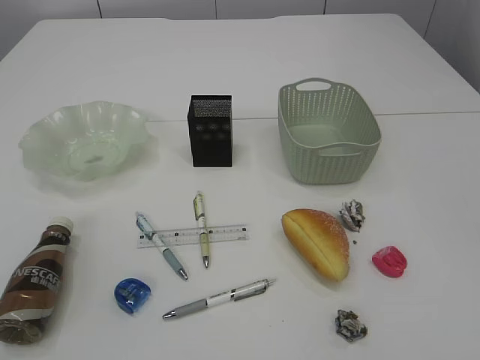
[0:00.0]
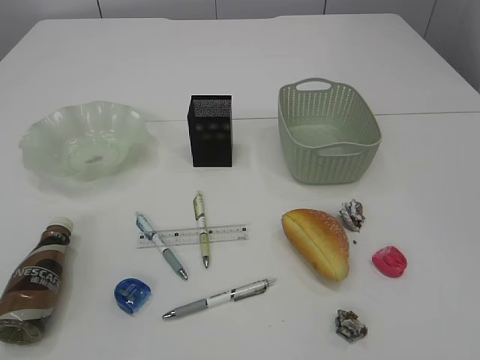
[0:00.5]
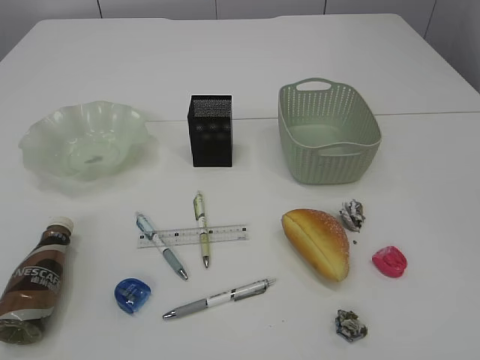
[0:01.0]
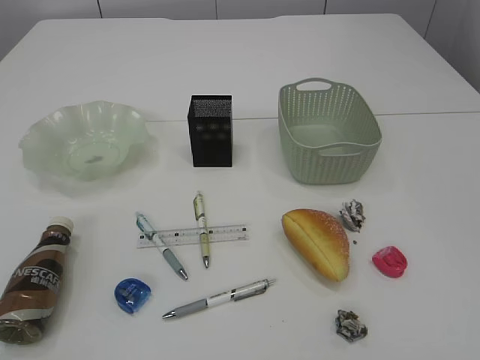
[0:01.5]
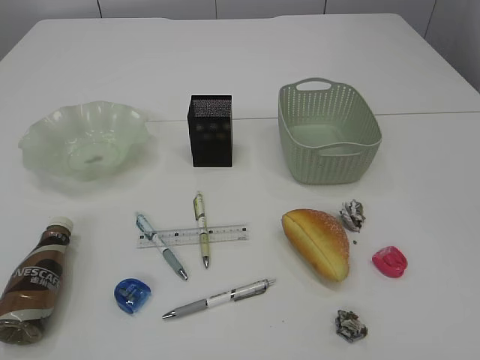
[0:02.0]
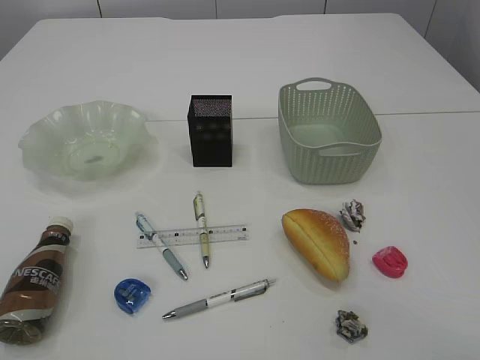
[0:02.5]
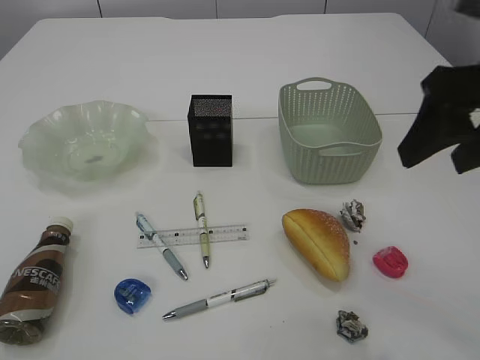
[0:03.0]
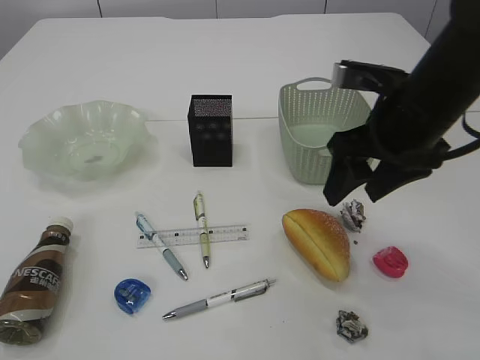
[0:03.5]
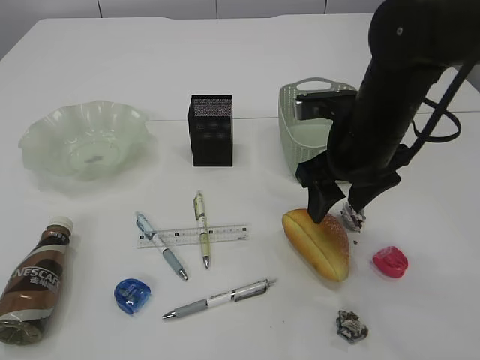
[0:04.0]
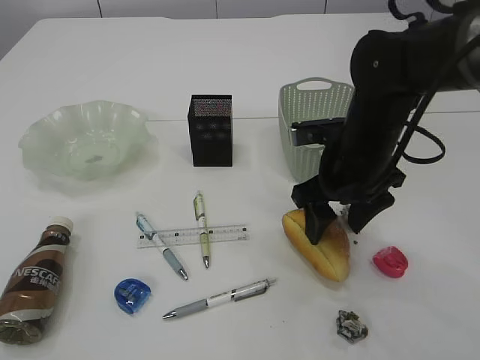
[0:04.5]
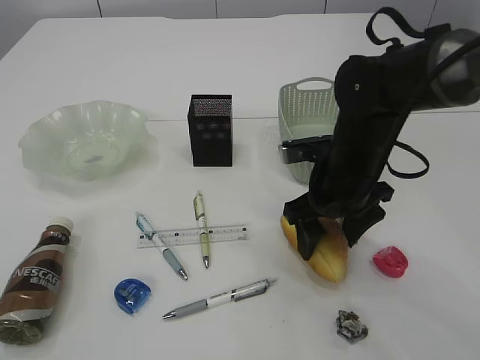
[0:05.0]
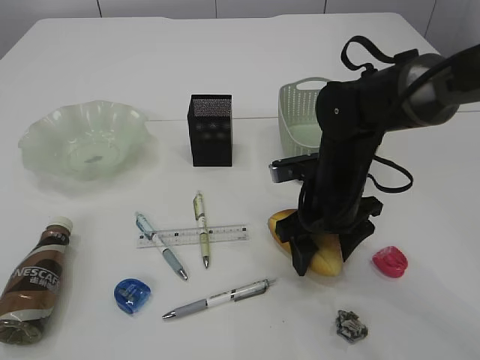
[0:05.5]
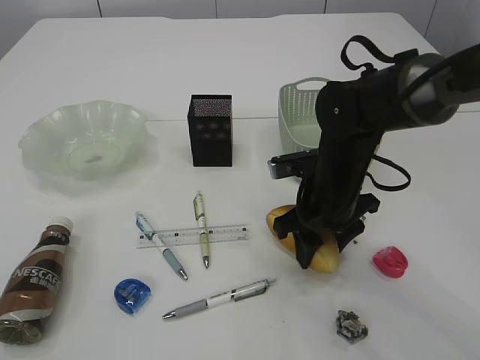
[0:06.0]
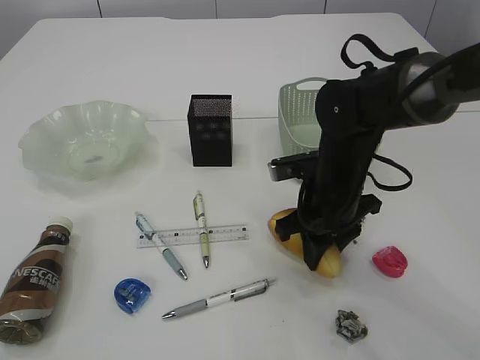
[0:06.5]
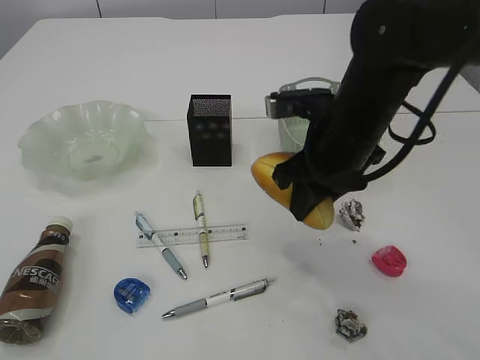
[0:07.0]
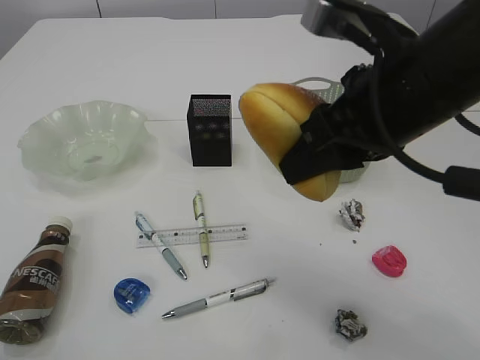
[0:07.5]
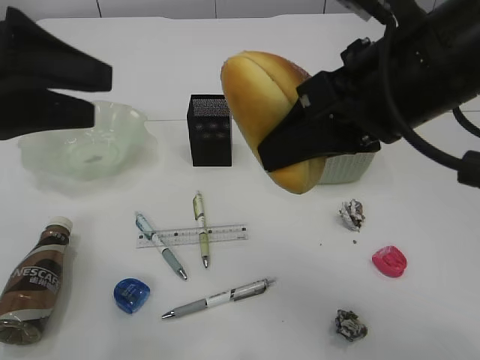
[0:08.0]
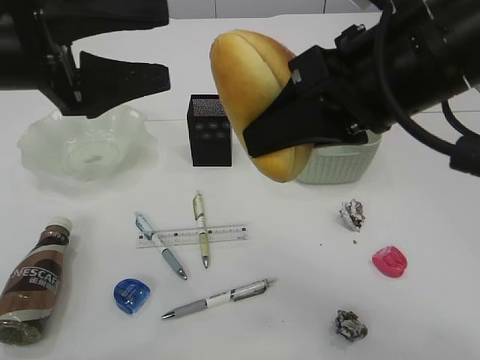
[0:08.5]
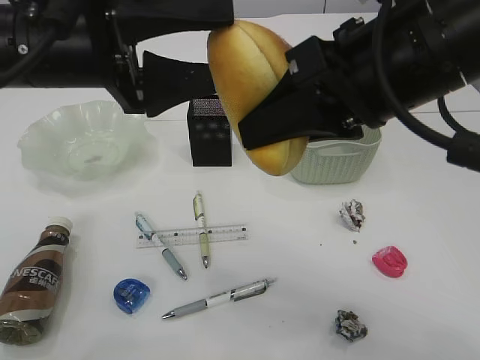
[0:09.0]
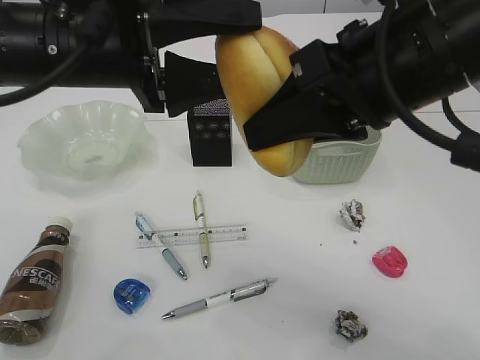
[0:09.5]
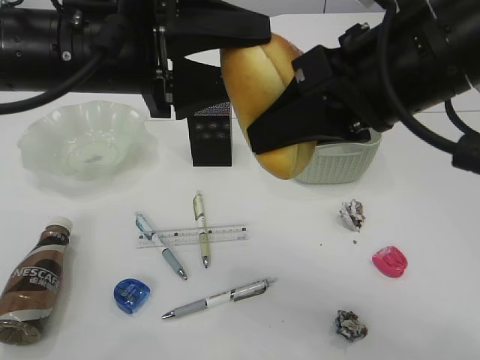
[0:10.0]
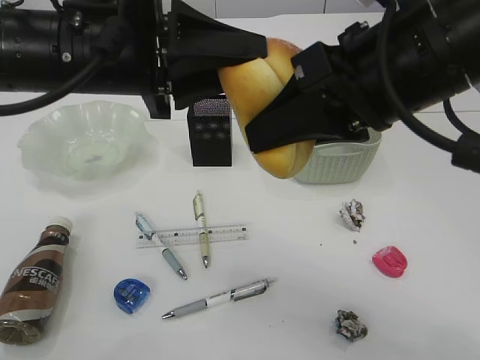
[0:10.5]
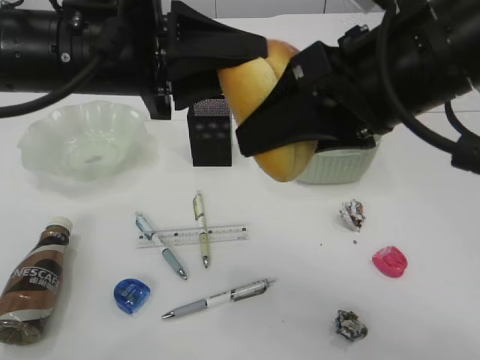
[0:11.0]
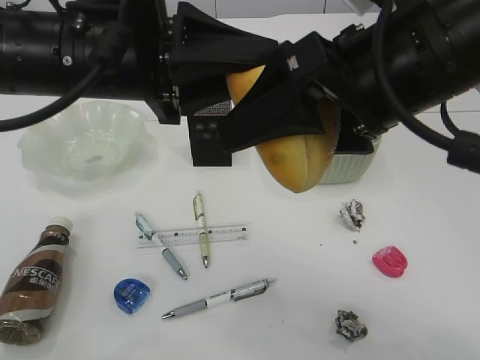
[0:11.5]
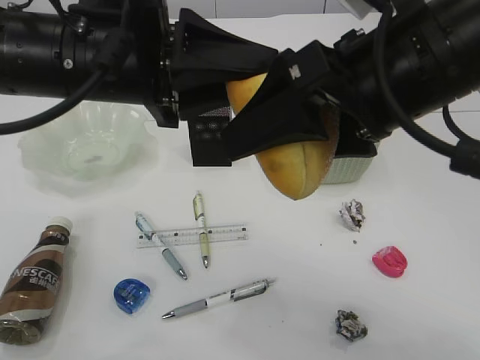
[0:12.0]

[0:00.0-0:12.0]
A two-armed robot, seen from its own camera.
0:02.0 to 0:04.0: The right gripper heads forward and to the left, covering approximately 40 cm. The left gripper is displaced forward by approximately 10 cm.
0:04.0 to 0:06.0: The right gripper goes roughly 10 cm downward.
0:06.0 to 0:08.0: The left gripper moves forward and to the right, roughly 15 cm. The right gripper moves upward and backward, about 25 cm, and closes.
0:08.0 to 0:10.0: The left gripper moves to the right, approximately 10 cm.
0:10.0 to 0:12.0: The right gripper opens up. Meanwhile the left gripper closes.

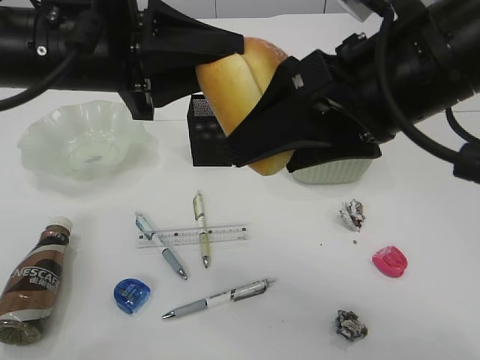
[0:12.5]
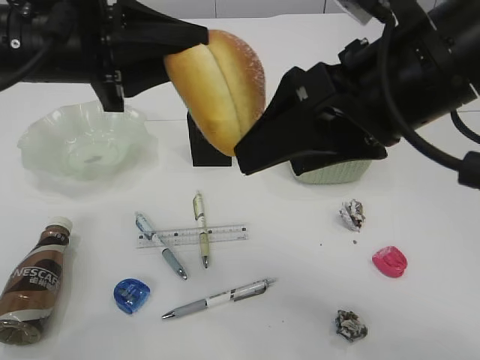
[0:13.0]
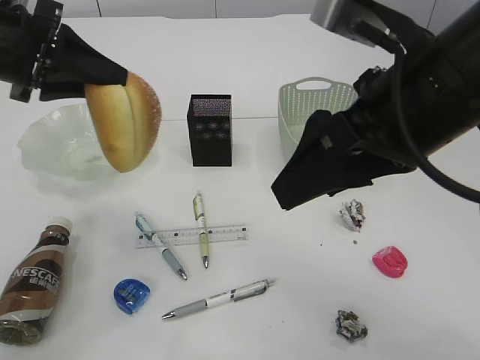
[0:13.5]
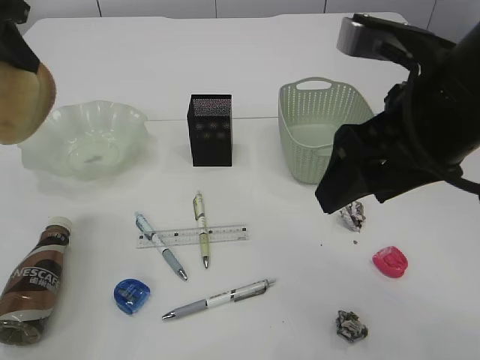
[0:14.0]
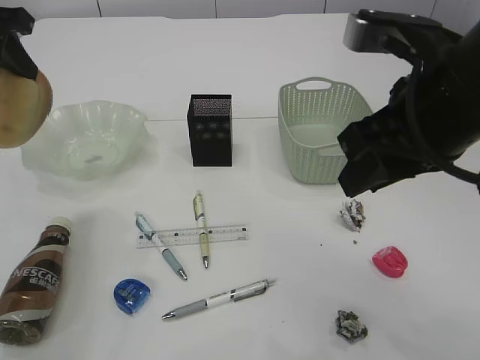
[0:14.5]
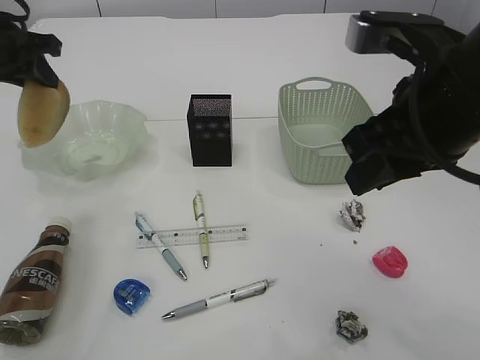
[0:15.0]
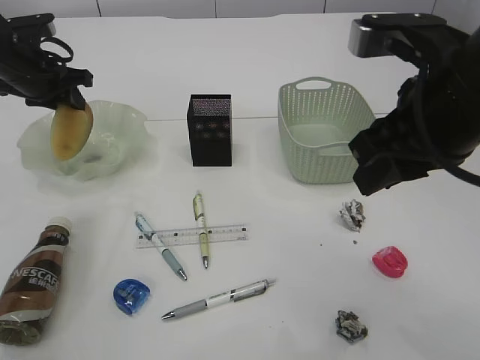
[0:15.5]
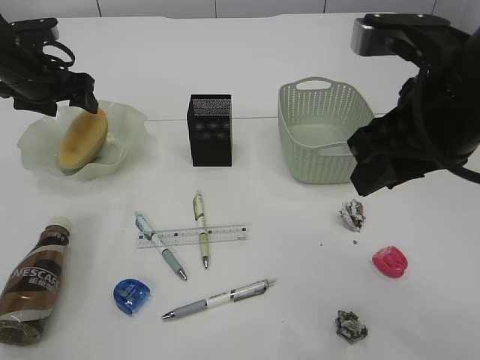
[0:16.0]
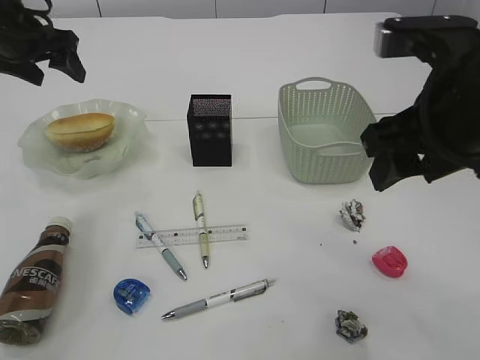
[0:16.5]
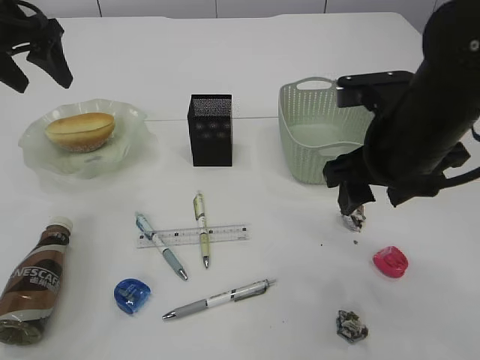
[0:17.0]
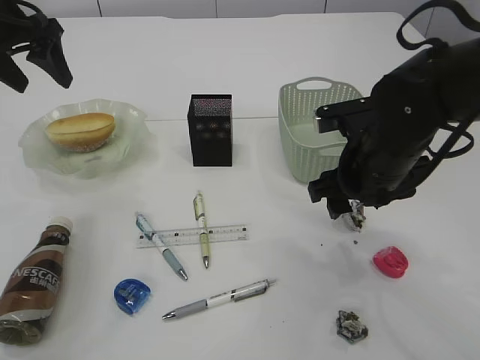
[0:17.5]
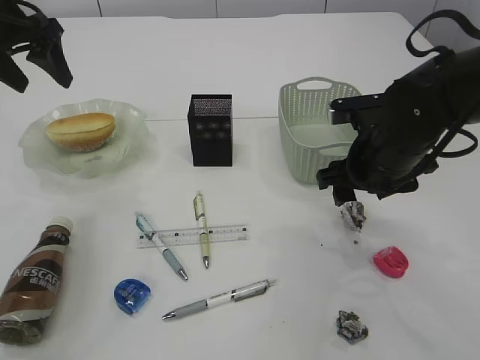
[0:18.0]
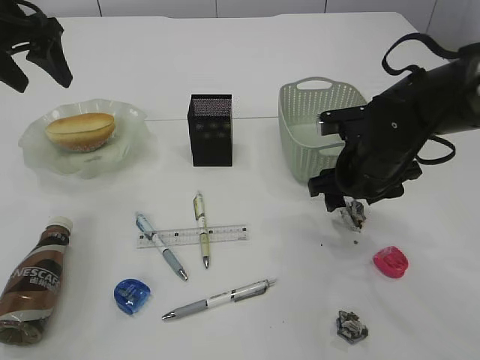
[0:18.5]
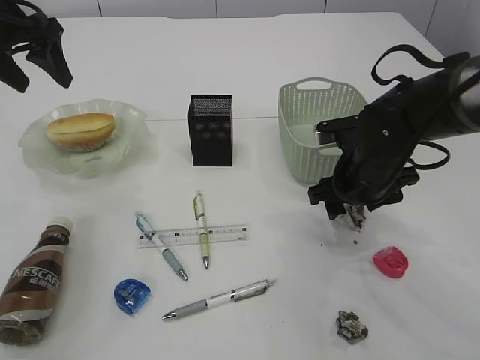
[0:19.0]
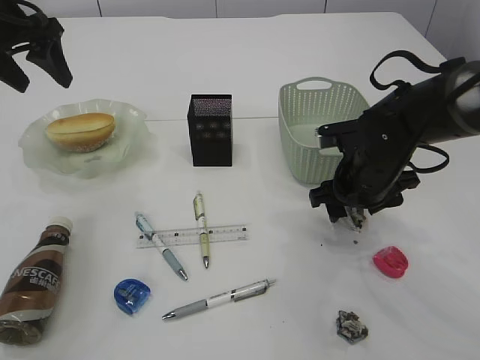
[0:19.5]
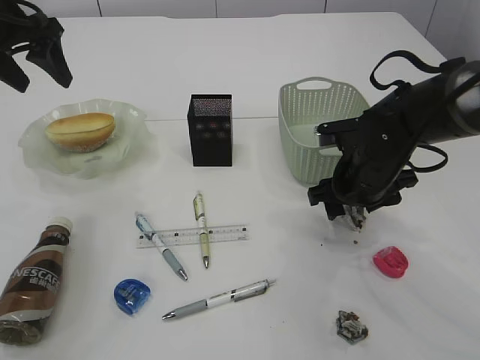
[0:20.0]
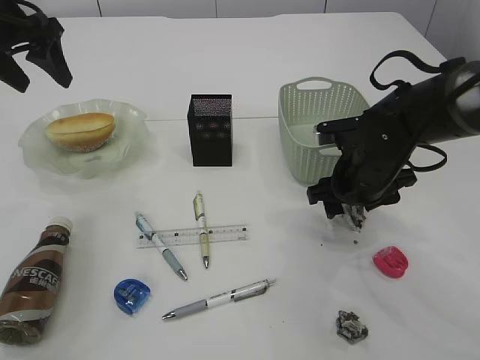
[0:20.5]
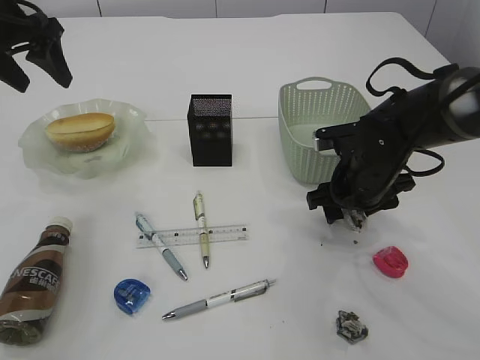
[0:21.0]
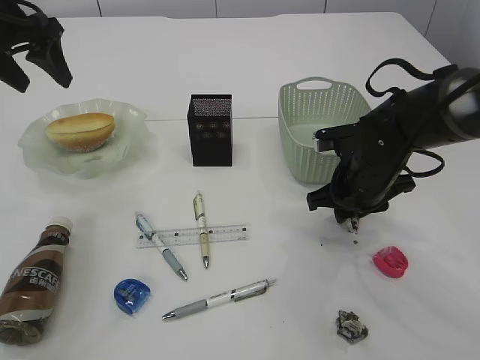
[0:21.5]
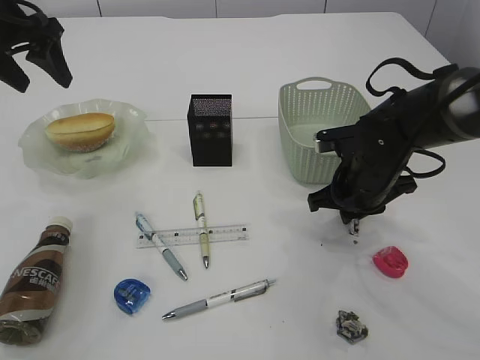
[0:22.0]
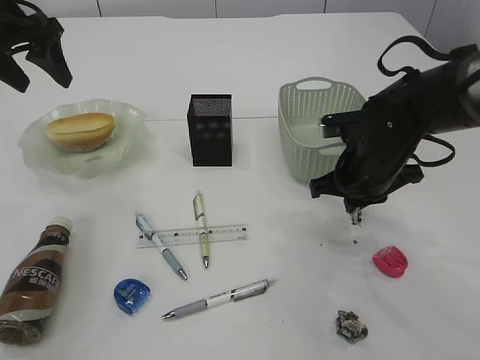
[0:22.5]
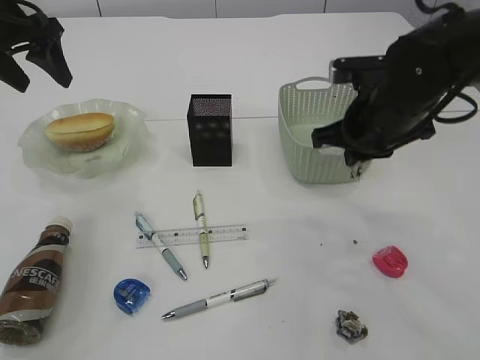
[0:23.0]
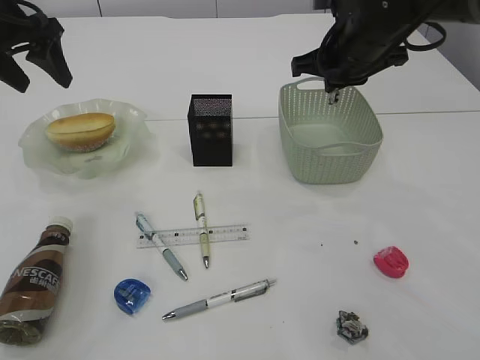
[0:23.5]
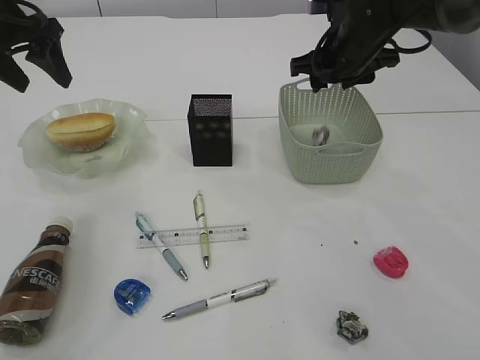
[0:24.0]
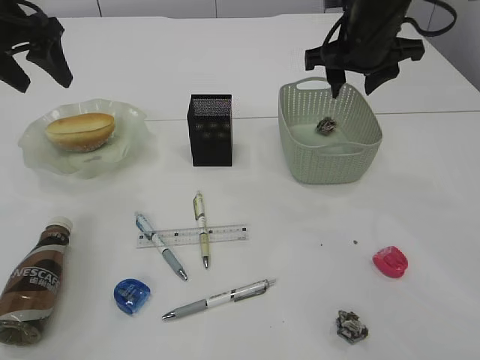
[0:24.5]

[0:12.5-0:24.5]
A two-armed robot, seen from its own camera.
Step, 0:13.5 to 0:16.5: place the bread in the plate.
Step, 0:17.0 to 0:22.5: Pick up the waste paper.
0:12.5 to 0:14.5: The left gripper shifts about 20 cm to the left and forward, while the right gripper closes up.
0:14.5 to 0:16.5: The left gripper is displaced forward and downward by some 10 cm, and opens its fingers. Meanwhile the right gripper opens its fingers.
0:16.5 to 0:18.5: The right gripper heads downward and forward, covering about 20 cm.
0:18.5 to 0:20.5: The grippers make only small movements.
0:20.5 to 0:22.5: The right gripper closes its fingers.
0:22.5 to 0:24.5: The right gripper heads upward and forward, covering about 15 cm, and opens.

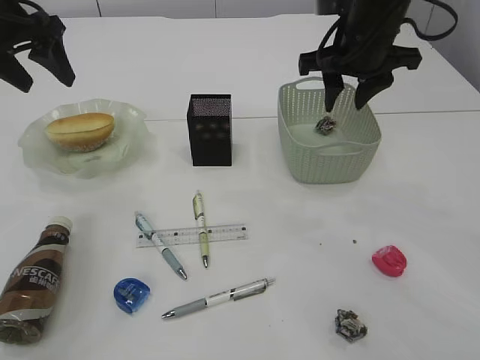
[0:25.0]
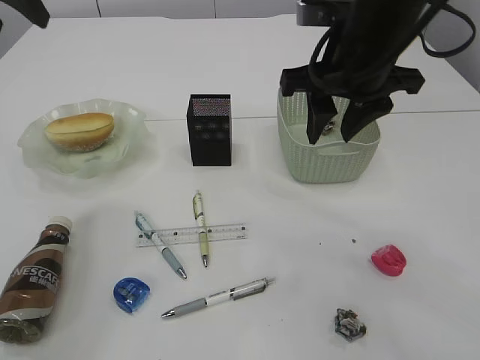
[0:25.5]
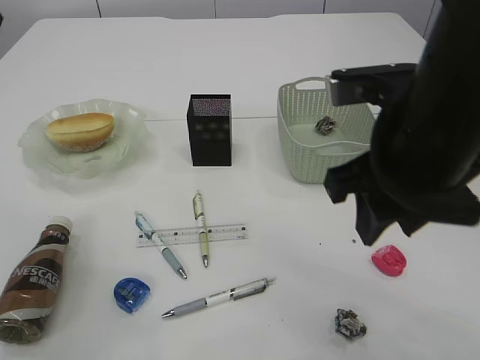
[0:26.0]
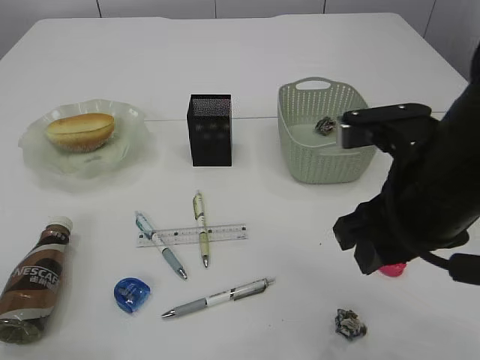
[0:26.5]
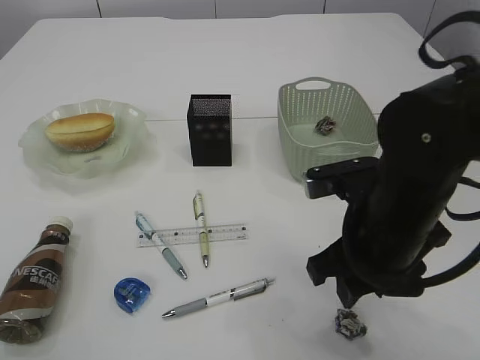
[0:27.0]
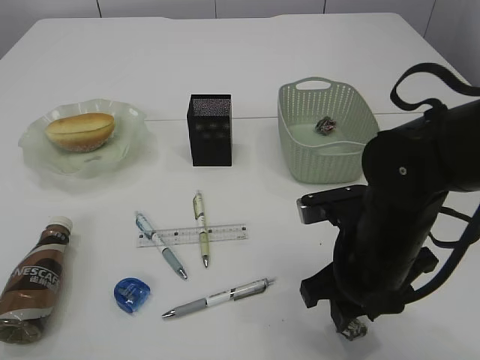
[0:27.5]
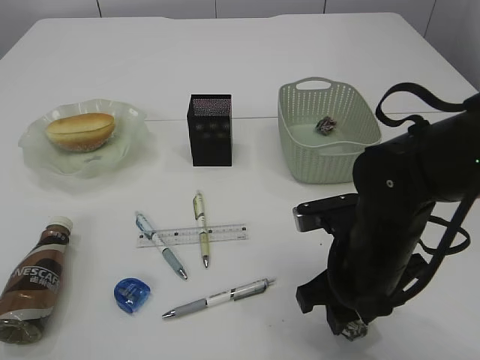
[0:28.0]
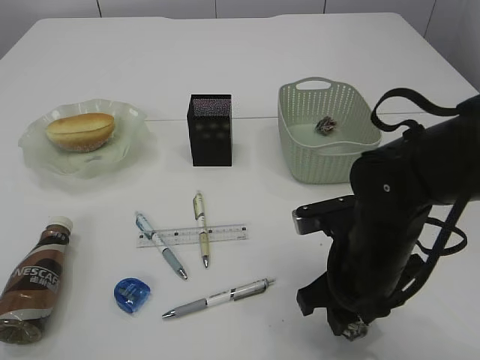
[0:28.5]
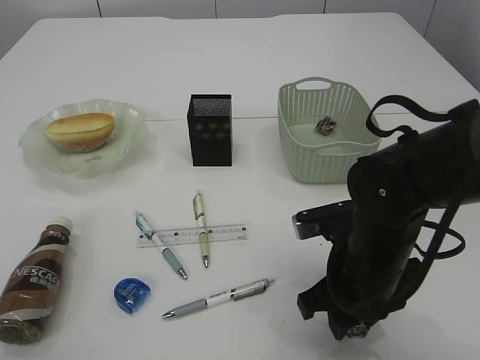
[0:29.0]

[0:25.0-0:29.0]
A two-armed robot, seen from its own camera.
0:25.0 to 0:27.0: The left gripper shifts roughly 25 cm backward and upward, while the right gripper goes approximately 20 cm backward and downward.
0:27.0 to 0:29.0: The right gripper shifts approximately 5 cm downward.
